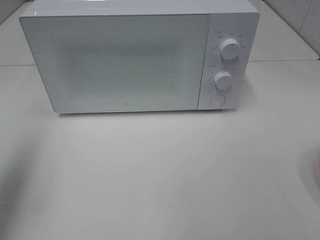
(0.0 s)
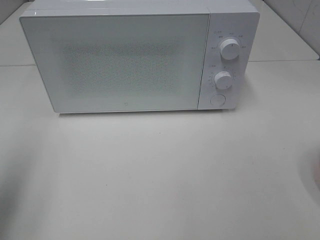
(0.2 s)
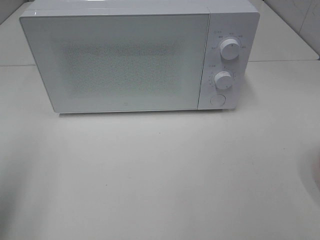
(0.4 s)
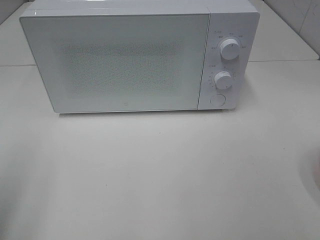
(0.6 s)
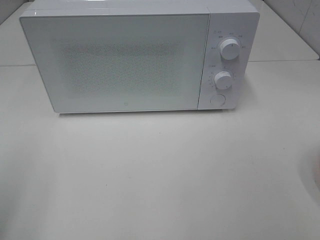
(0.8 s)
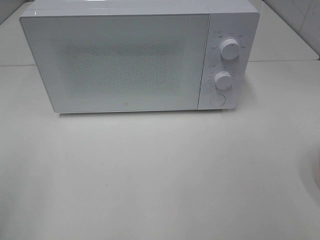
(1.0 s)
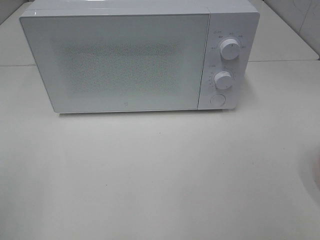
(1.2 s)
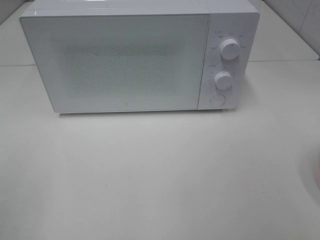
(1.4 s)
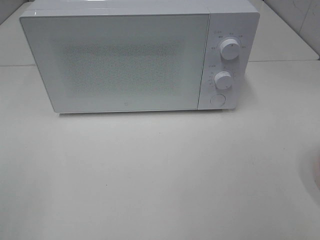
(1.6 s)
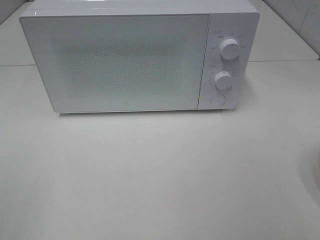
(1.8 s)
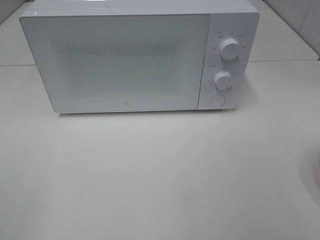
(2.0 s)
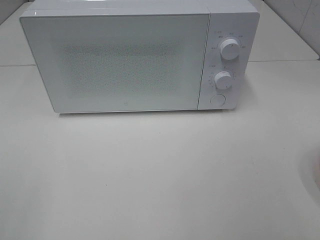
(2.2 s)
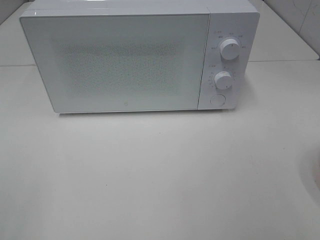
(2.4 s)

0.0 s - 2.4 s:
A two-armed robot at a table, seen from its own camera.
Task of the whole recording: Heat the burger.
0.0 s - 1.2 s: The left gripper shifts roughly 15 cm backward.

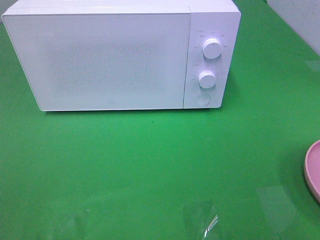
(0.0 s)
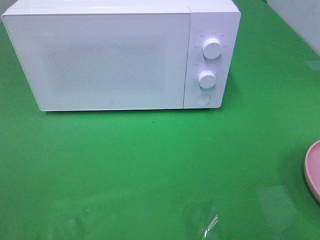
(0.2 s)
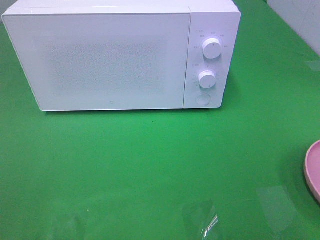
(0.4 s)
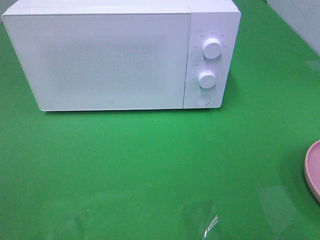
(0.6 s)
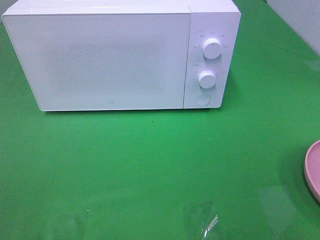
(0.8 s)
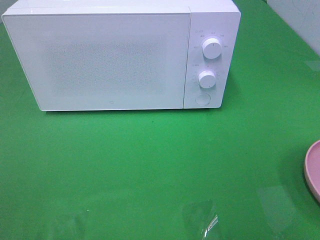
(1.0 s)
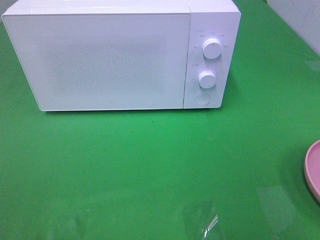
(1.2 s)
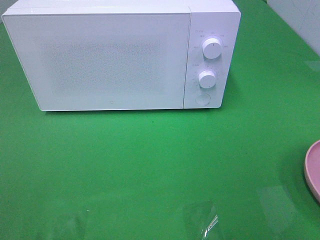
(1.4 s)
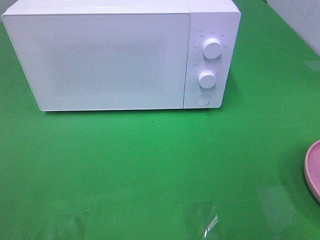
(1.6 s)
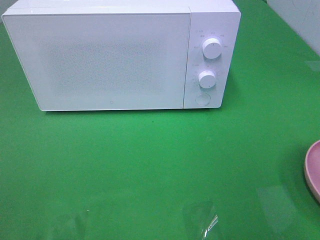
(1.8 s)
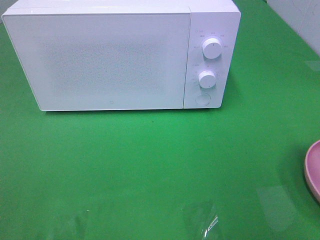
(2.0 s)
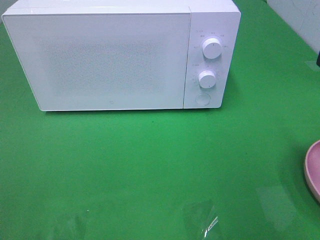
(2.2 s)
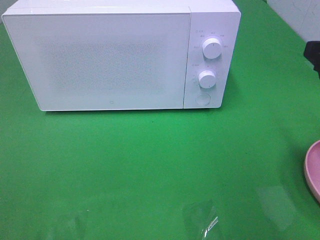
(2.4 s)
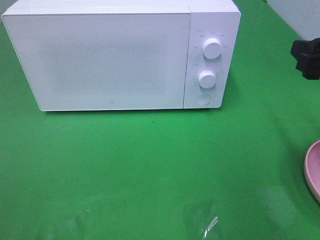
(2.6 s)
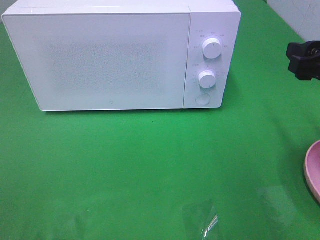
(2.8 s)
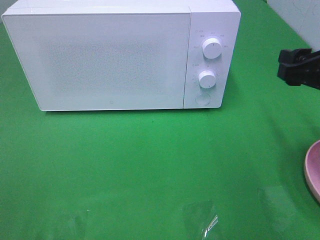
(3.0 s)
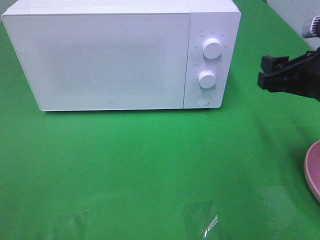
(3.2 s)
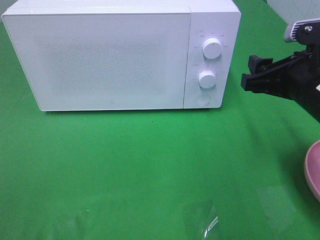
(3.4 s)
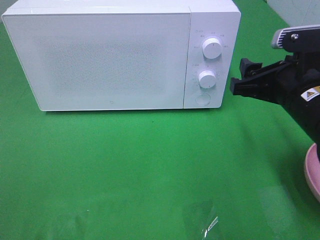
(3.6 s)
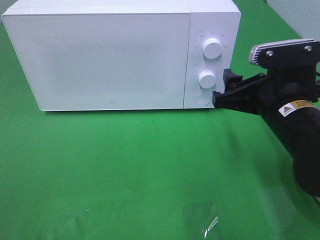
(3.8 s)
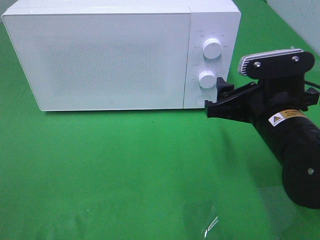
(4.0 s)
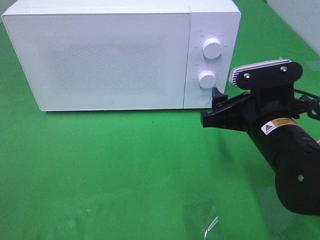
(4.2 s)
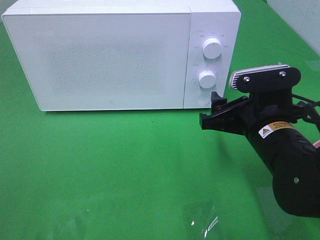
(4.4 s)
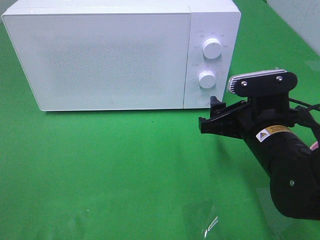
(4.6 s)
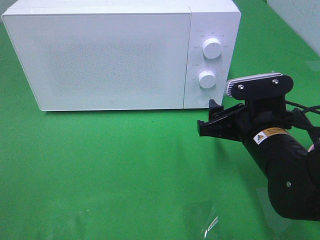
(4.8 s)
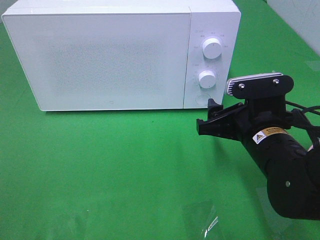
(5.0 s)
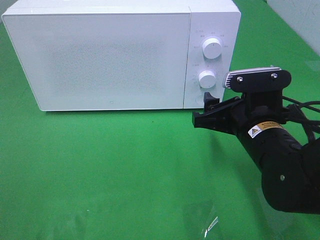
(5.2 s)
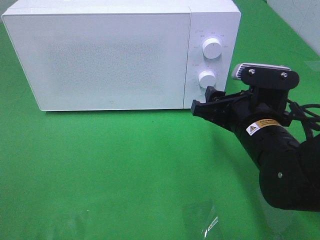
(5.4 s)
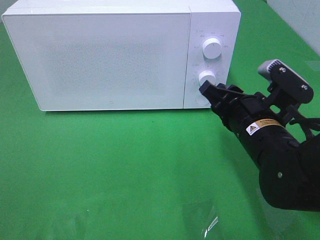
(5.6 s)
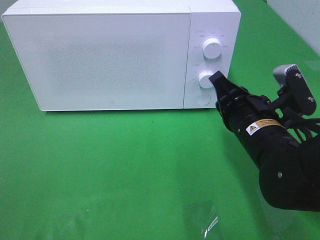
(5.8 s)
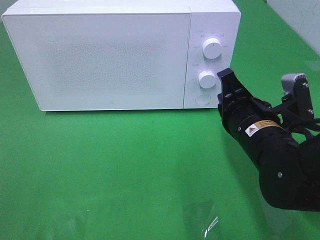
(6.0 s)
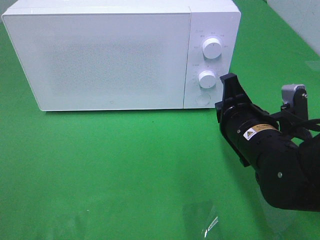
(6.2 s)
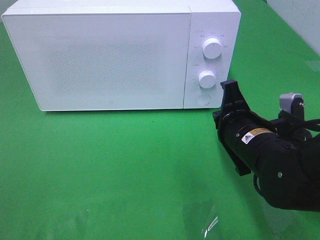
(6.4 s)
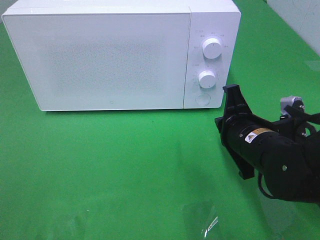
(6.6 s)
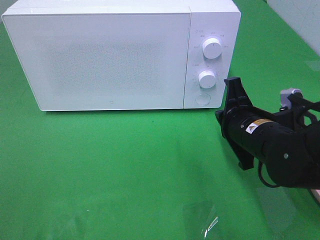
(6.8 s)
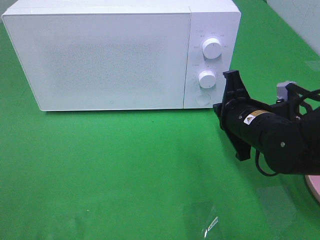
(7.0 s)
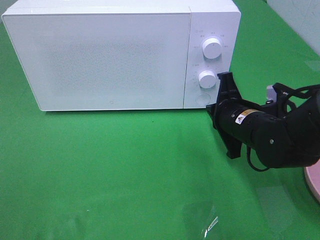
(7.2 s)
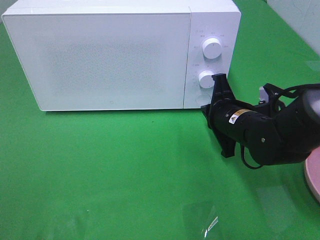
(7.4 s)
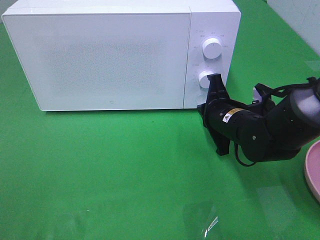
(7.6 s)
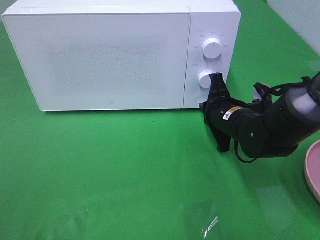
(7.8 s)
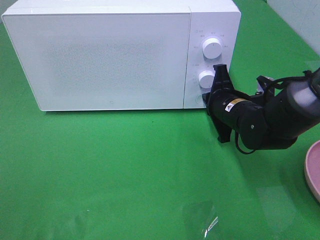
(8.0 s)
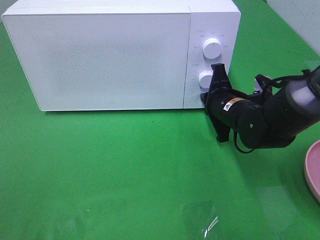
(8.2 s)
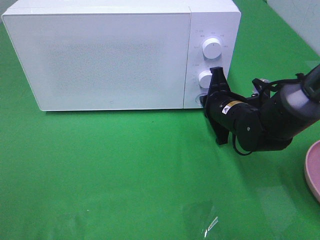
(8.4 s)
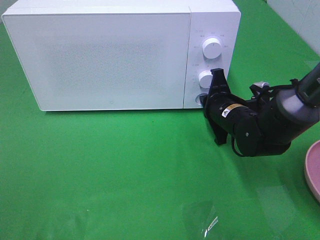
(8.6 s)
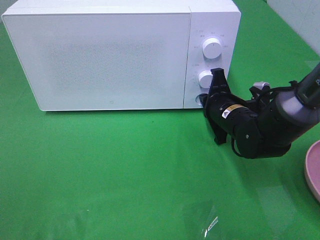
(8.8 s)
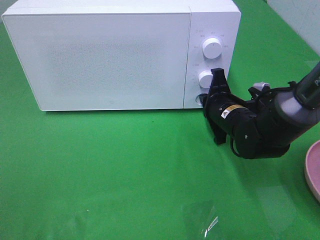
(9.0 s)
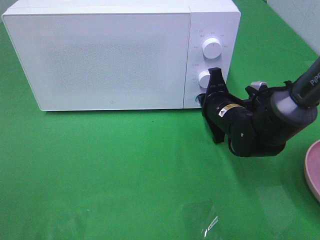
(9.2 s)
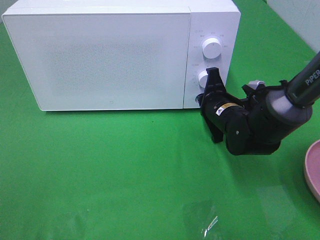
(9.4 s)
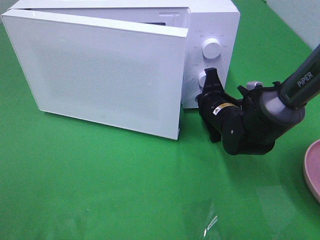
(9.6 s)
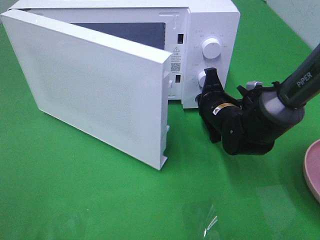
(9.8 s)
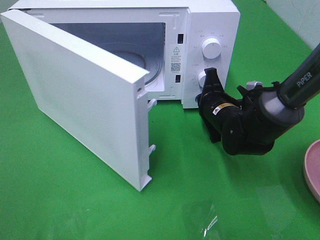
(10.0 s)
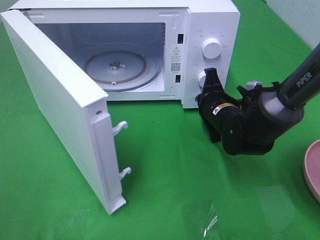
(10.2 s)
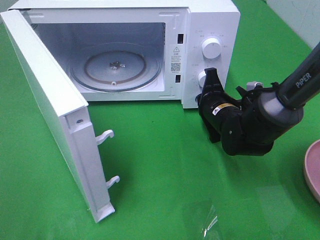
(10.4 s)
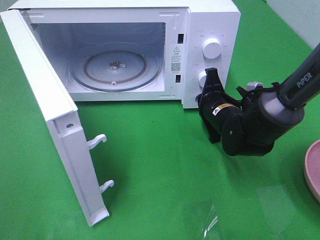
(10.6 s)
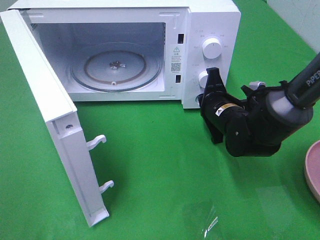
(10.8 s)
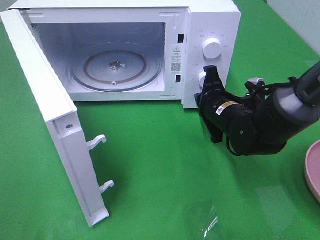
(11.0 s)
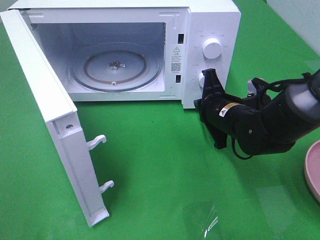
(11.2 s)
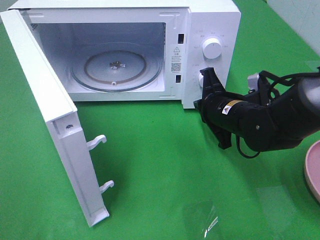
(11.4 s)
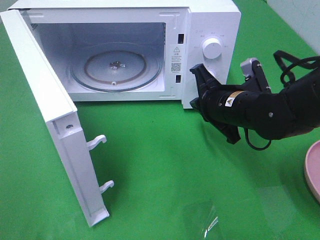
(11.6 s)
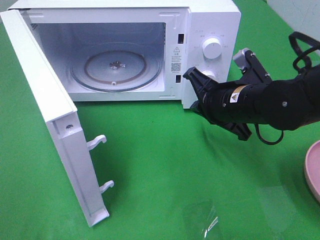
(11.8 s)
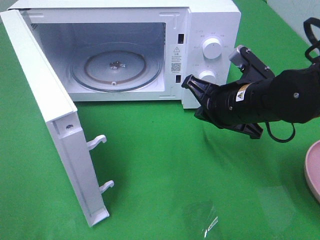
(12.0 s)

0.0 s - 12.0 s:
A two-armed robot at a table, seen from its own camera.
Task of the whole recording: Heat the burger.
Step, 0.0 s - 11.2 s: Right hand: press the switch.
1.6 s - 3.0 s: The right gripper heads forward and downward, covering approximately 15 cm.
3.0 s - 4.4 s: The right gripper moves to the left and downward, roughly 15 cm.
4.4 s - 6.0 s: The right gripper closes its fingers.
6.0 s - 7.6 s: The right gripper is displaced forward and downward by approximately 10 cm.
7.6 s - 9.0 s: The grippers make only small movements.
10.4 s - 12.0 s: The right gripper shifts some 10 cm upward and backward.

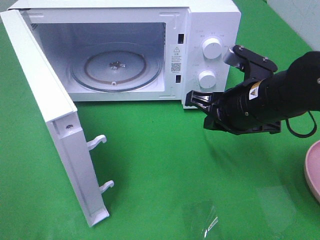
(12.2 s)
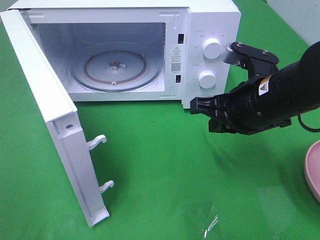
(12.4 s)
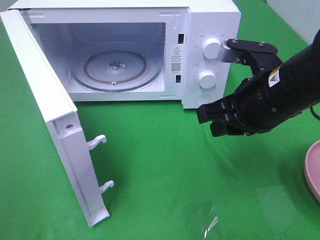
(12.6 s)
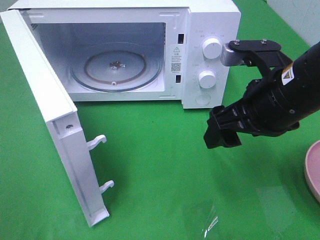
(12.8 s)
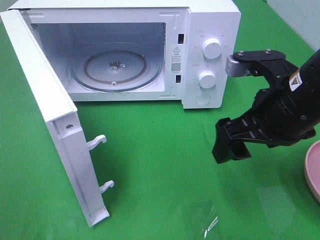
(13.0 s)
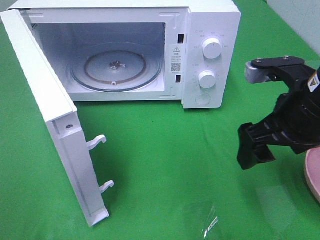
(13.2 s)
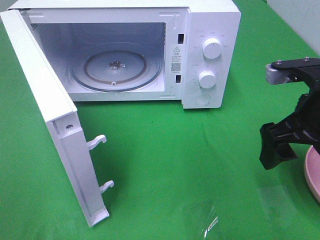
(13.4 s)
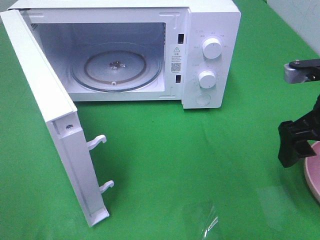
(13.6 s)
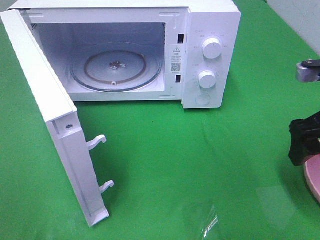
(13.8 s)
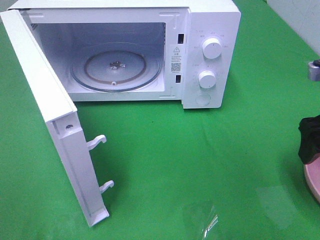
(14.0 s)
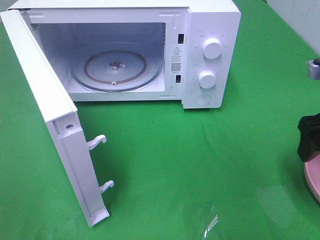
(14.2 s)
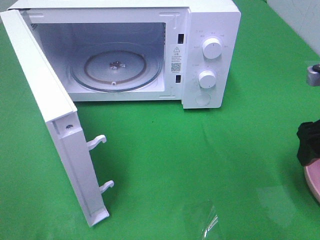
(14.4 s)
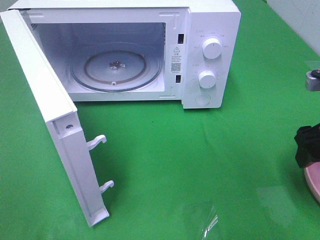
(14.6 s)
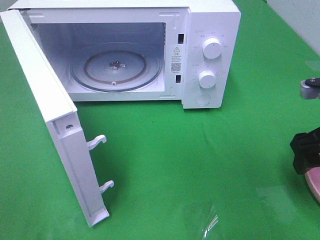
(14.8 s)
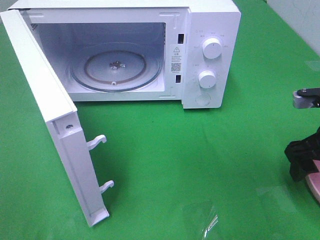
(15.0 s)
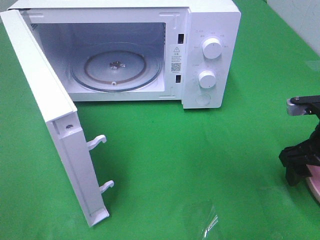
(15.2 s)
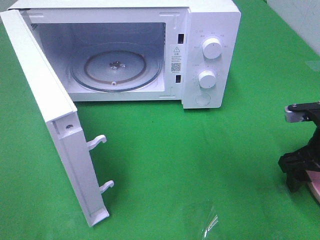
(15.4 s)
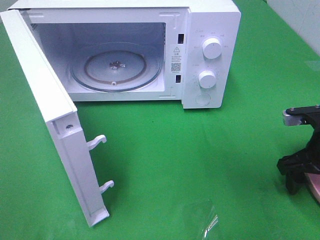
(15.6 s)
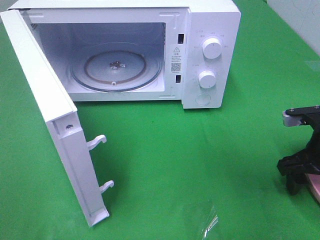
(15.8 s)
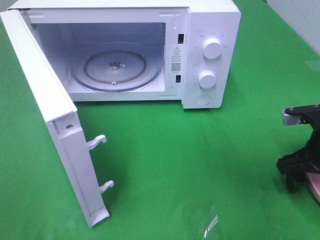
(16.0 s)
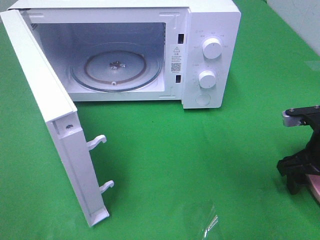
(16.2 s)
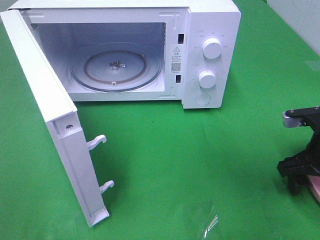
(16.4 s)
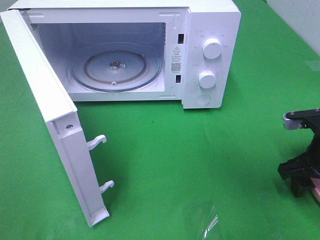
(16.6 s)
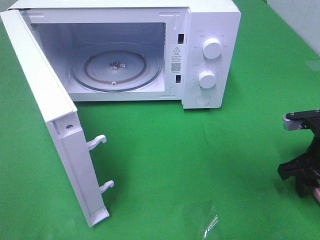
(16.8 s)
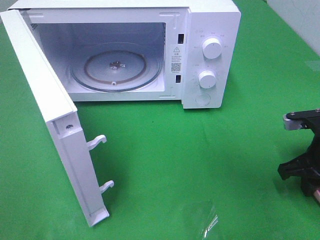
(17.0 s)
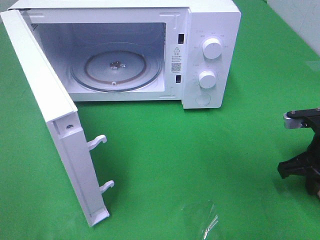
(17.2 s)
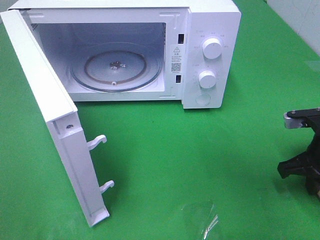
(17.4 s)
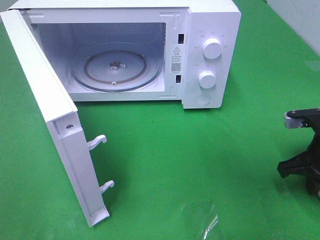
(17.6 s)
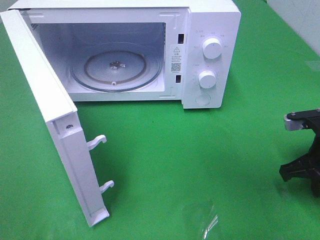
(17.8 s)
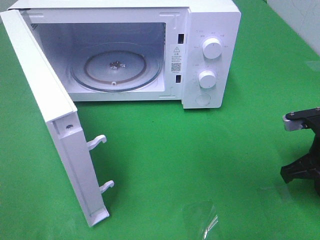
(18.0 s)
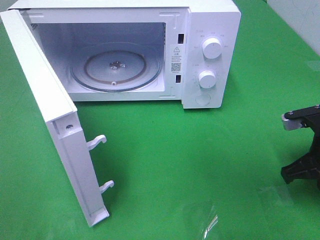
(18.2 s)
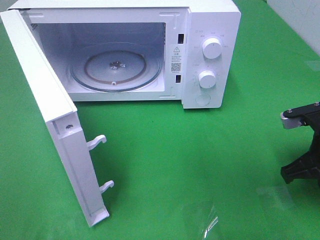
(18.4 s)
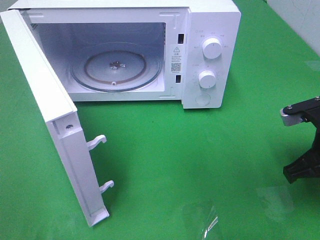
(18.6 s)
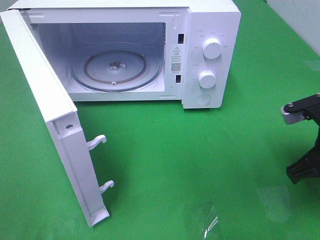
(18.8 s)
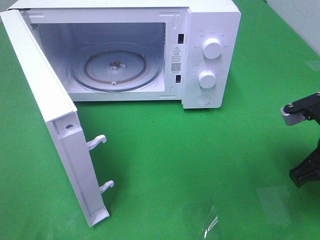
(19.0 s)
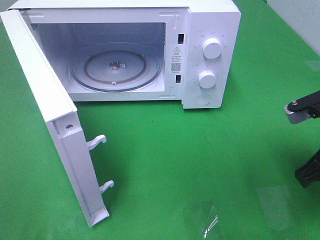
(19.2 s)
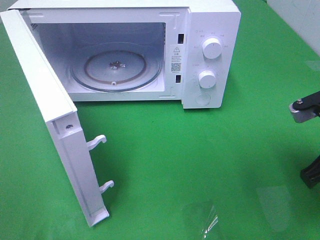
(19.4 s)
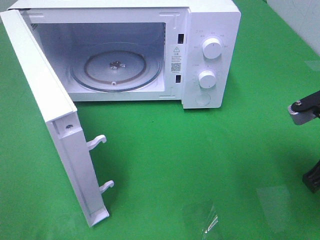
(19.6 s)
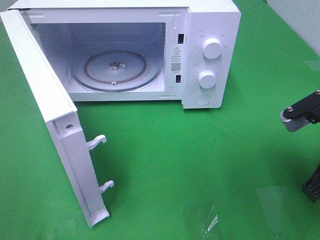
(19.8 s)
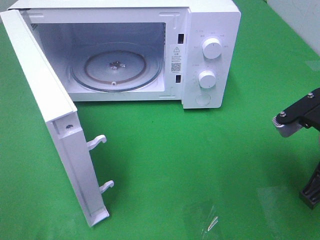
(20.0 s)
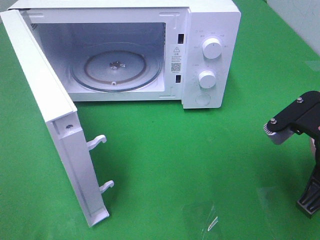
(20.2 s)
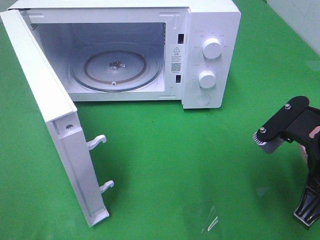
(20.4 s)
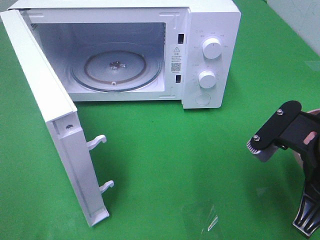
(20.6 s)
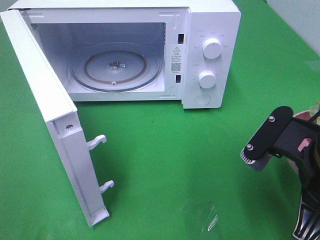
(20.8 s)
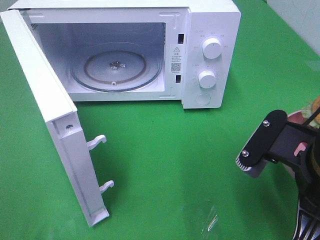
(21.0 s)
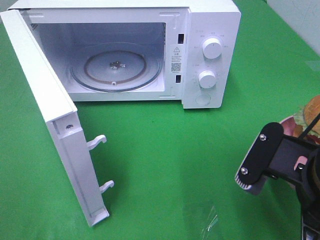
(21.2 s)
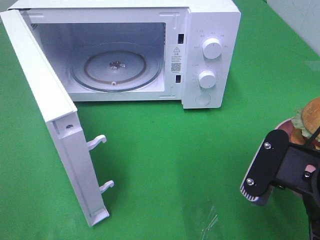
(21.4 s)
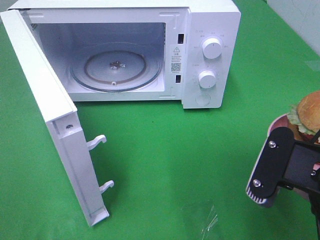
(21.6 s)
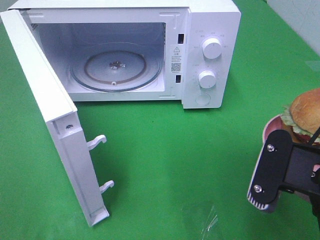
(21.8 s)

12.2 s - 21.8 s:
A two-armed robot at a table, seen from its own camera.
Task of the whole recording: Heat the burger.
Step, 12.2 s - 18.4 s: Right hand: grab the plate with the hamburger.
12.2 s - 13.8 s: The right gripper shifts roughly 10 cm to the right, and opens its fingers.
13.8 s - 15.4 s: The right gripper moves downward, approximately 10 cm.
15.4 s - 17.0 s: The right gripper closes its fingers.
17.0 s - 18.6 s: The right gripper moves roughly 5 cm, and closes.
18.6 s - 20.2 s: The right gripper is displaced backward by about 5 cm.
20.2 s - 21.8 s: The right gripper travels backward by approximately 5 cm.
